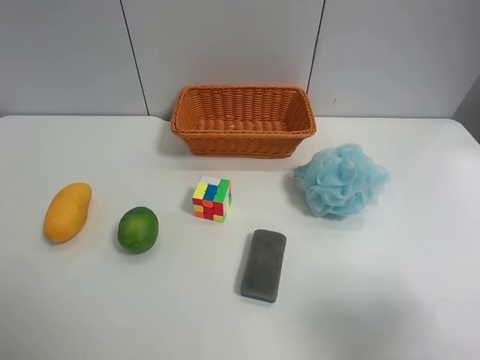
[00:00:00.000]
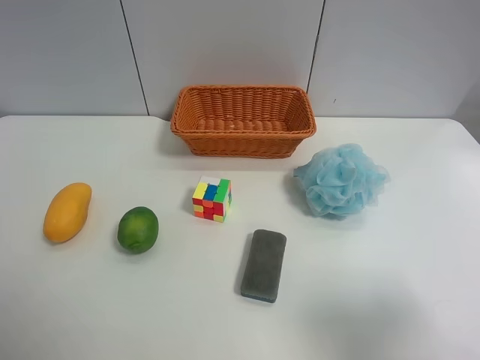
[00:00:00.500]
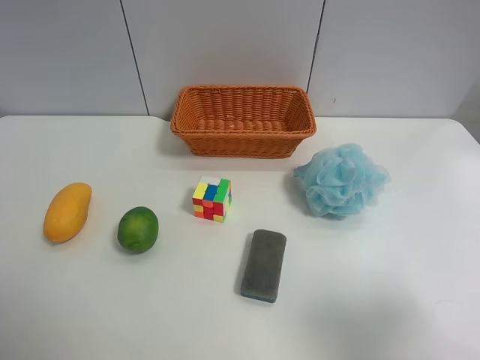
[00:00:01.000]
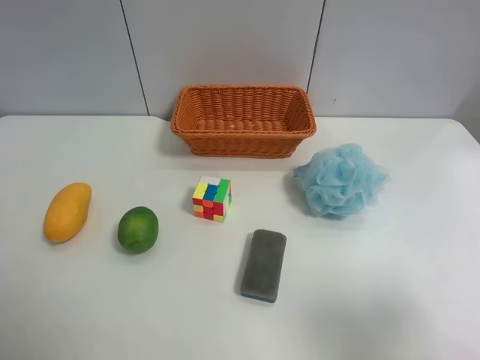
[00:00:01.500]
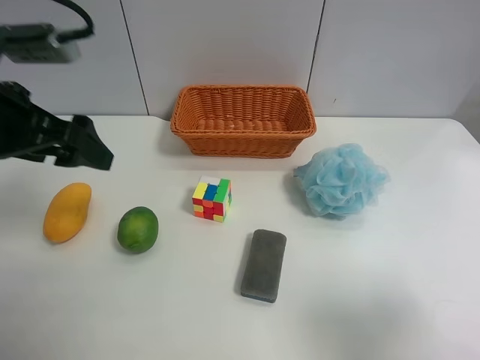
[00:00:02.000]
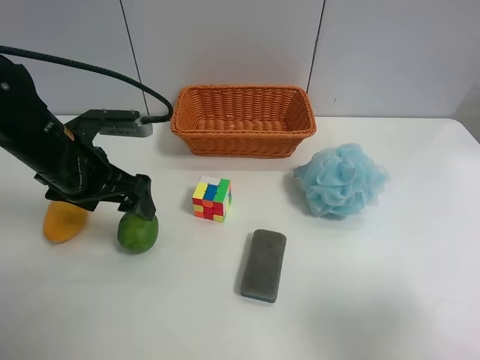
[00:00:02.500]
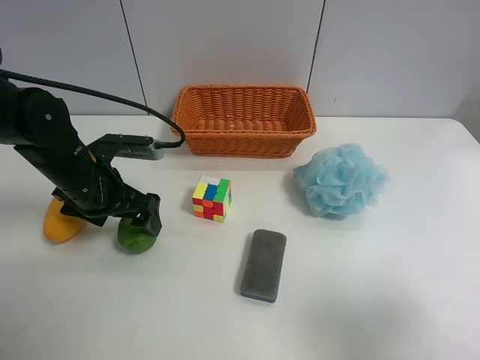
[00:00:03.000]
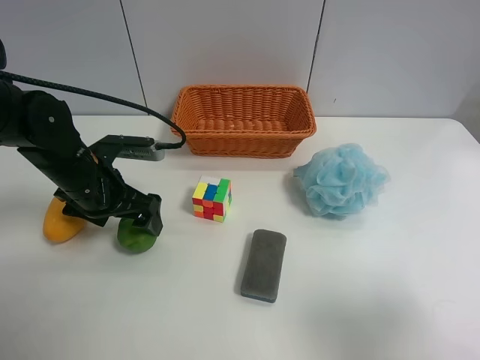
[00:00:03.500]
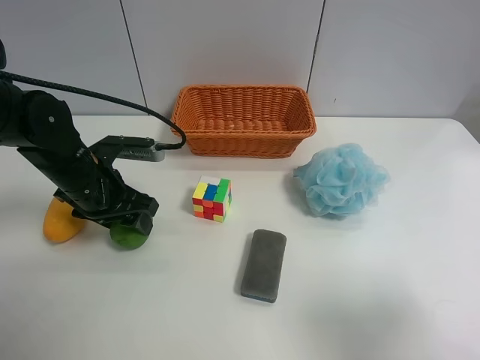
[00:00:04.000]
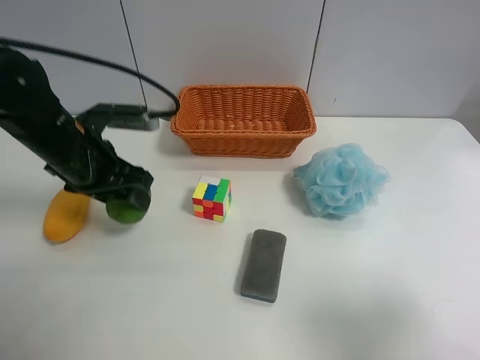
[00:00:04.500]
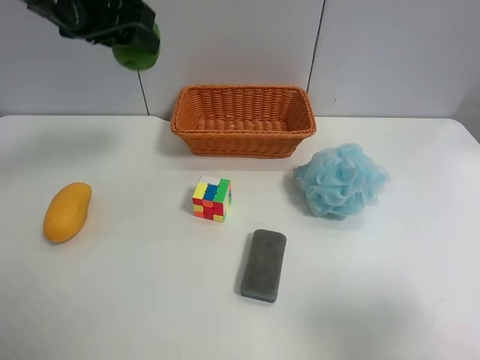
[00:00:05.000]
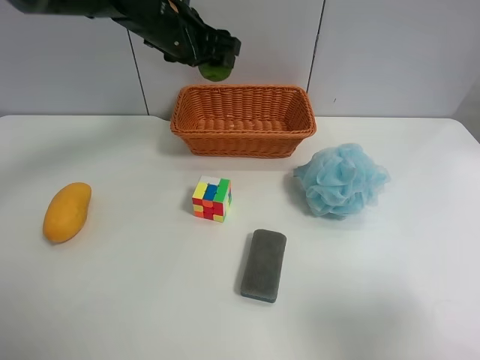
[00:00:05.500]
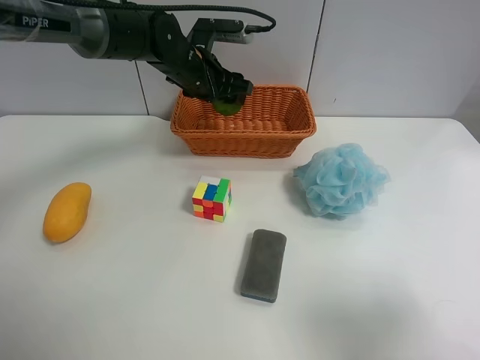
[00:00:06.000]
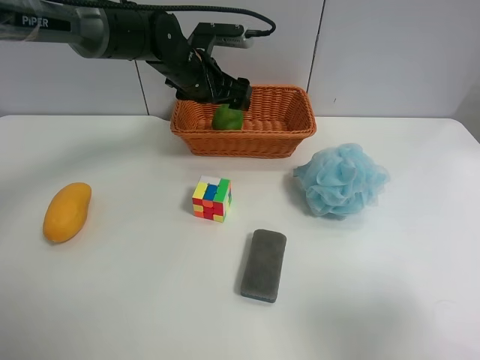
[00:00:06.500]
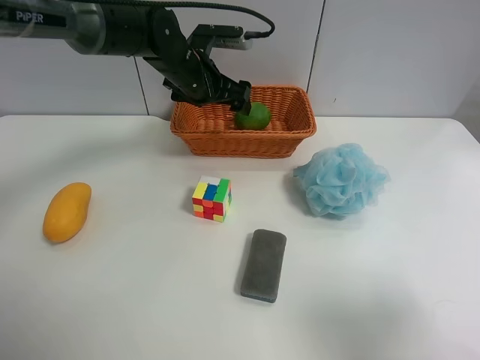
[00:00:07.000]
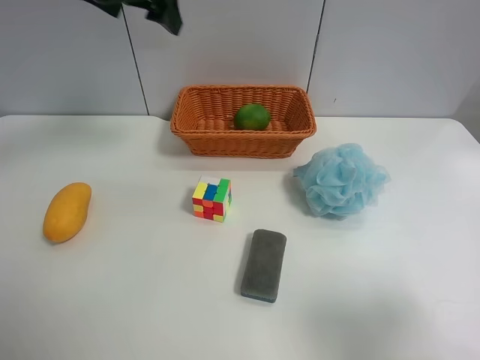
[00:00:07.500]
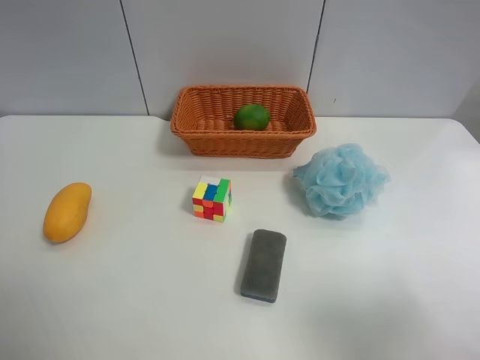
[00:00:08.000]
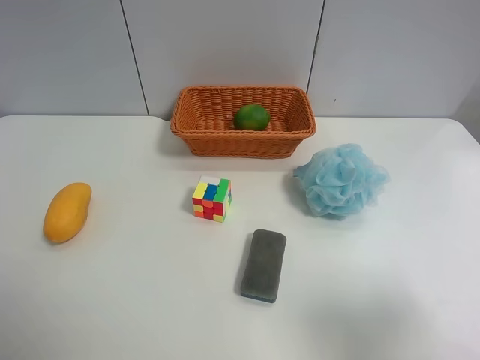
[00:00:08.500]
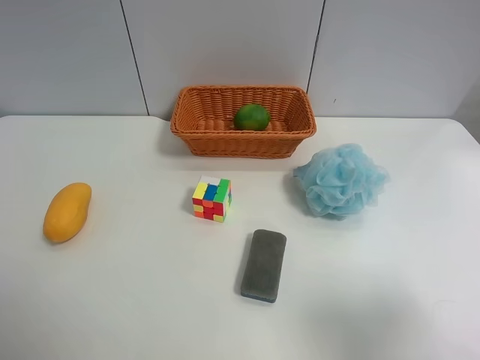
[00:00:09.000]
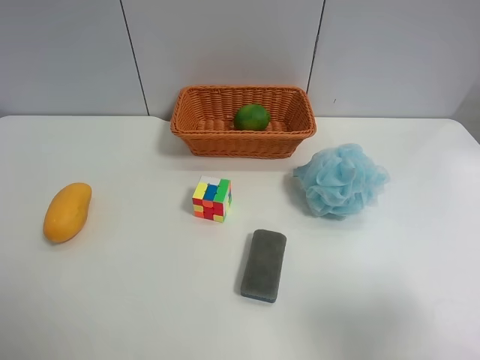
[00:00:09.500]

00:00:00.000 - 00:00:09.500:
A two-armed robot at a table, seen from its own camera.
Task of the whole recording: Randomly grab green lemon or mangoes from the table and put them in a basket.
Step, 00:00:00.000 - 00:00:03.500: Grasp the Lemon with the left gripper.
Step, 00:00:04.000 - 00:00:07.000: Place the Lemon into the basket with the left gripper.
00:00:00.000 - 00:00:02.000: The left gripper heads forward, covering about 25 cm.
00:00:02.000 - 00:00:04.000: The left gripper heads downward, covering approximately 15 cm, and closes up.
00:00:04.000 - 00:00:05.500: The left gripper goes approximately 25 cm forward, upward and to the right.
00:00:05.500 - 00:00:07.500: The left gripper is displaced upward, to the left and backward by approximately 15 cm, and opens its fingers.
00:00:07.500 - 00:00:09.500: The left gripper moves backward, about 40 cm.
